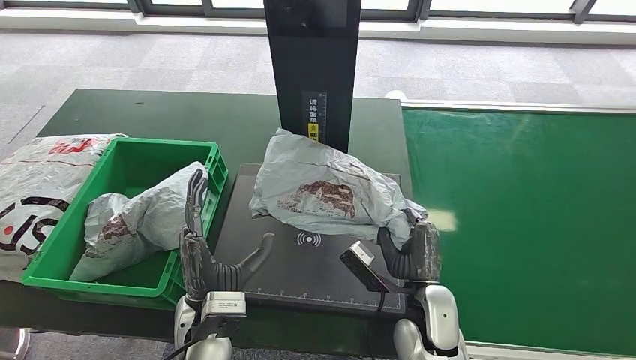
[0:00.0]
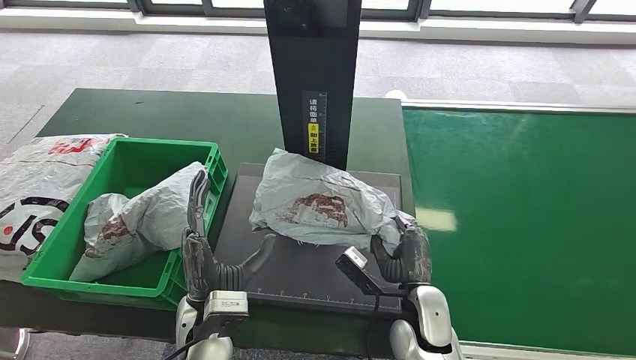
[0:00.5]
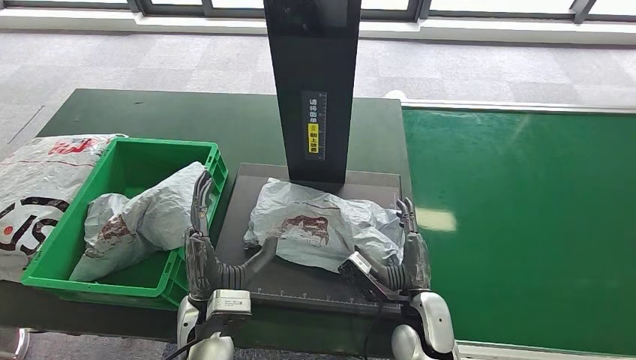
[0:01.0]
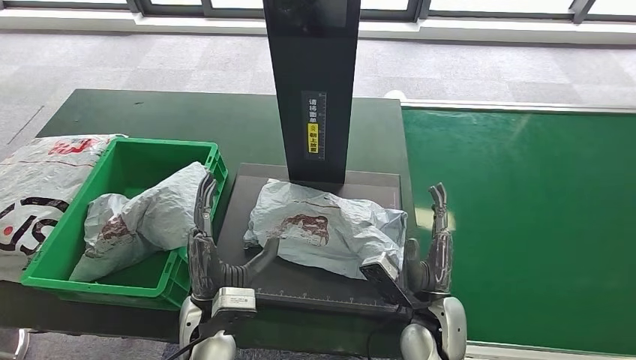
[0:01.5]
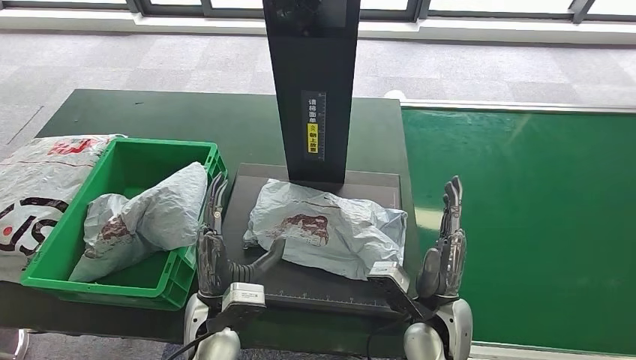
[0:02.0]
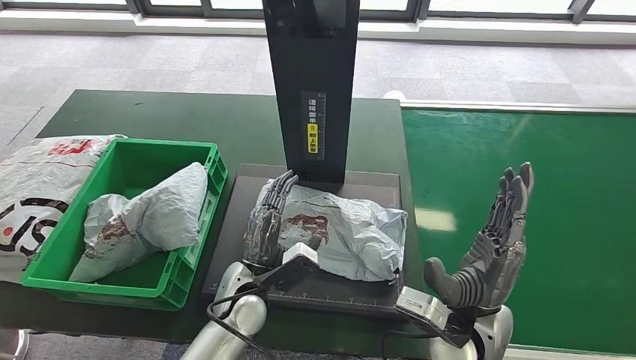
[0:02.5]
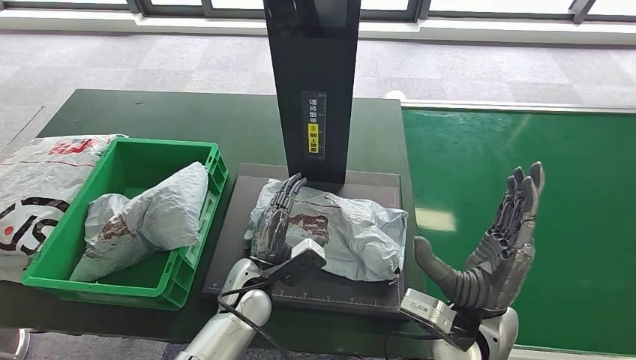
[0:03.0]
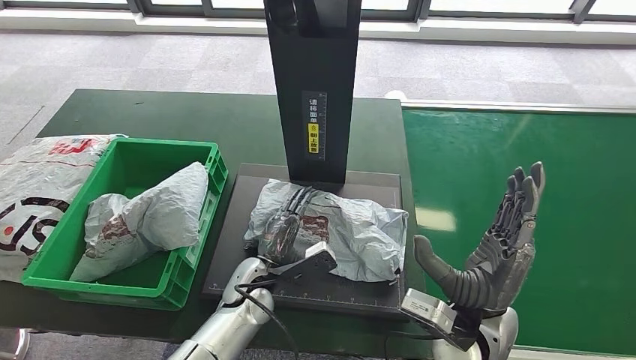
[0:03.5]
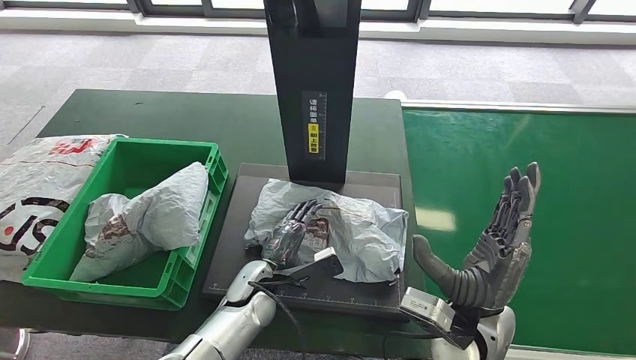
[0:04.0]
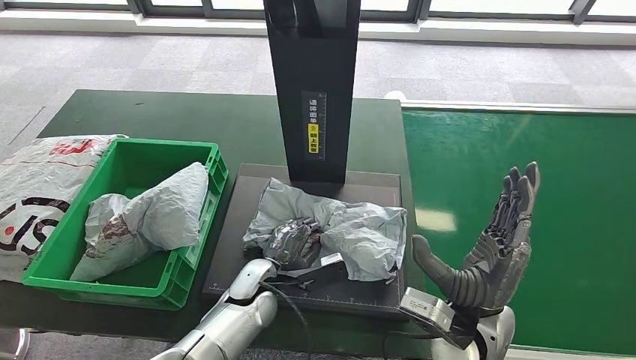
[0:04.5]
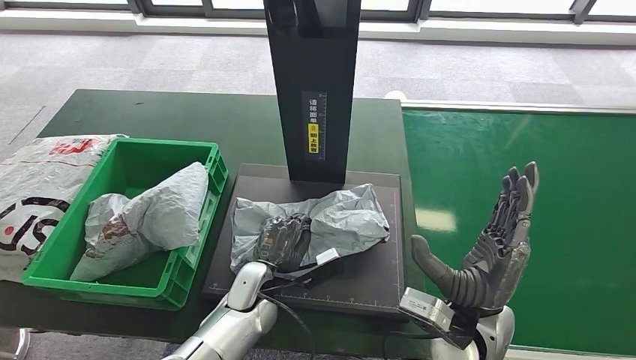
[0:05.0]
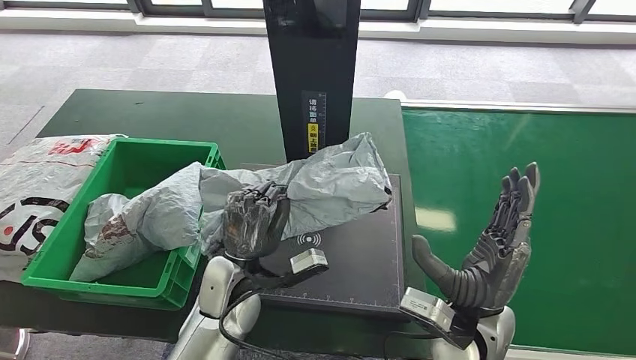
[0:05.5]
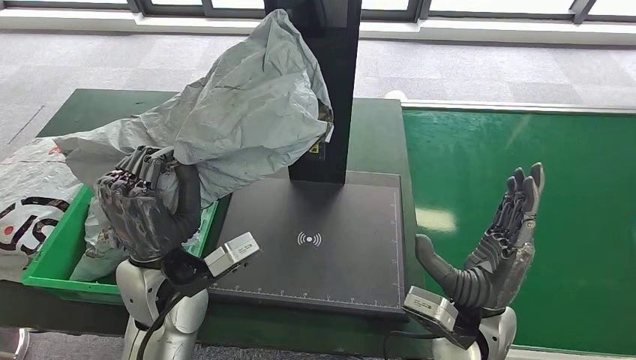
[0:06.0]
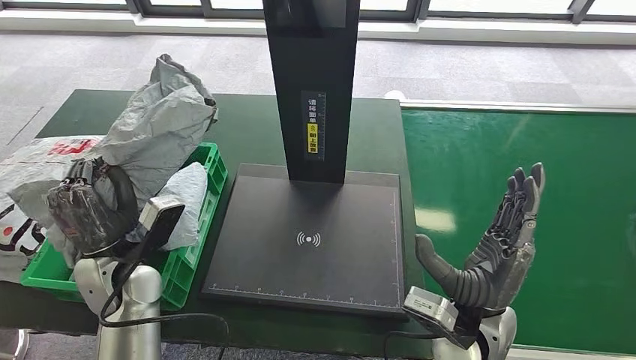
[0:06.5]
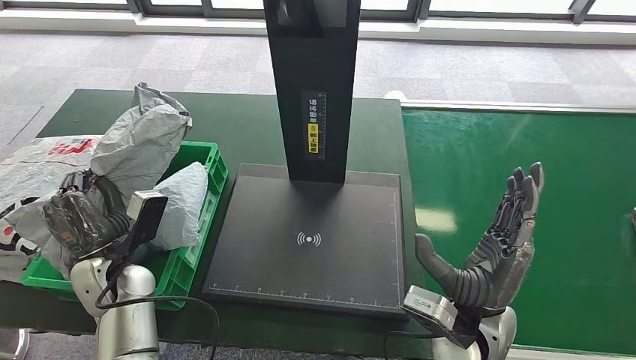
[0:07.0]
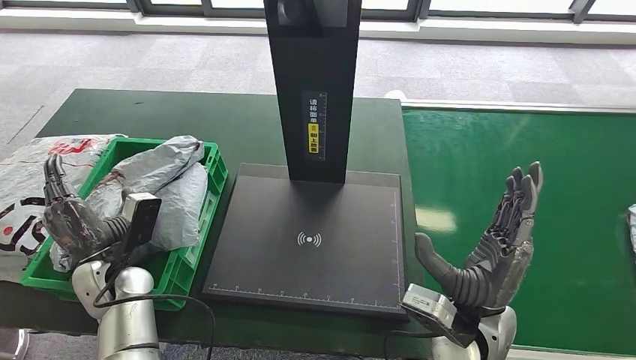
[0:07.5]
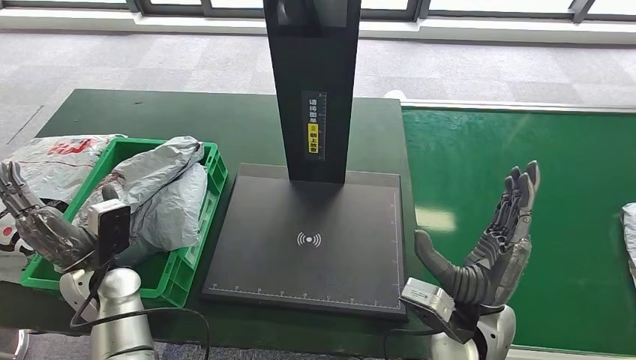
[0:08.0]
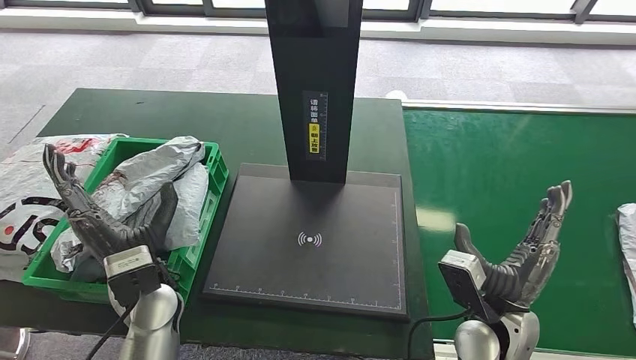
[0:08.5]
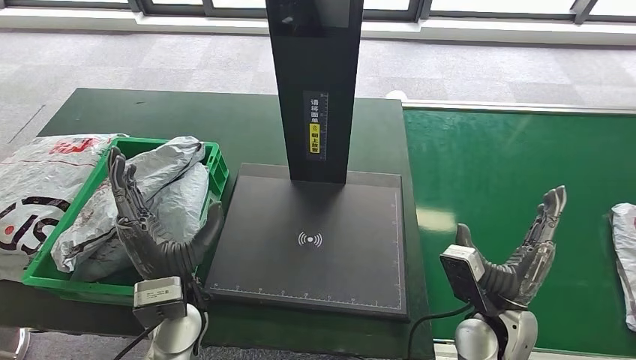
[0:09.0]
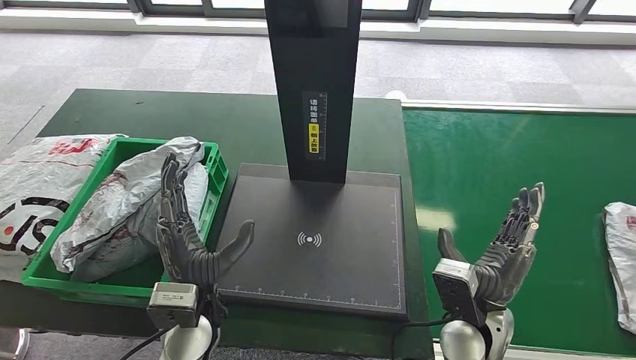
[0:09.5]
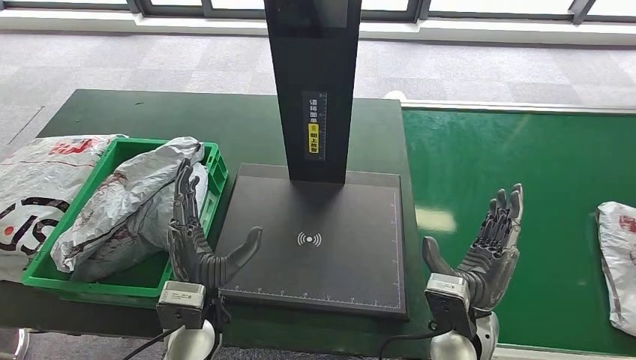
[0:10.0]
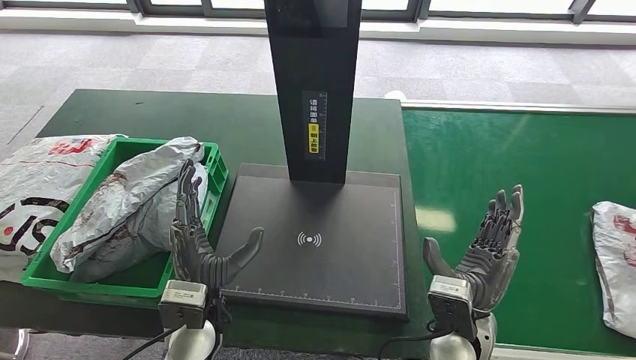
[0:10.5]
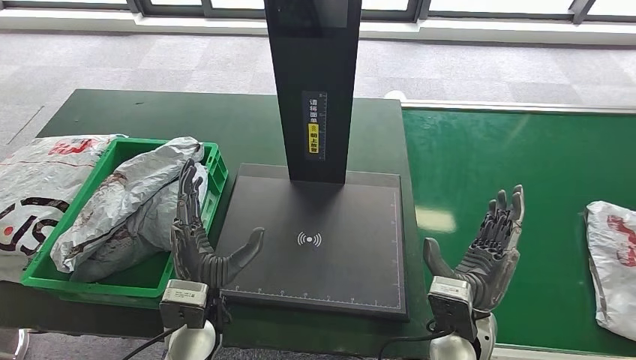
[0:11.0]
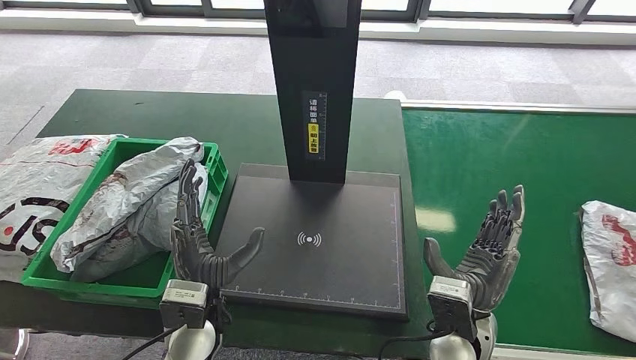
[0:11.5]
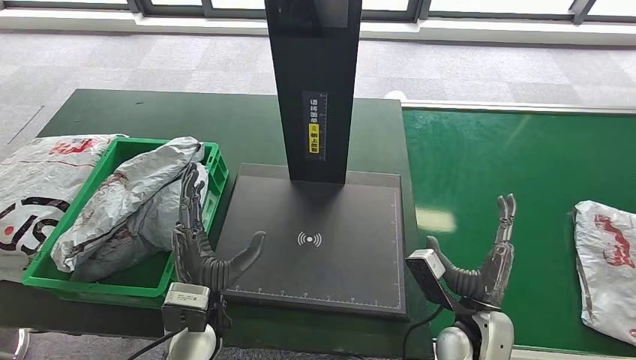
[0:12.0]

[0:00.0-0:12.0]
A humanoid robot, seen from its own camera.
Step, 0:01.5 to 0:05.0: Pick up the parcel from the inbound machine.
Step, 0:05.5 to 0:08.0: Place the parcel into the delivery box.
0:02.0 to 0:04.0: The left hand heads forward, downward and to the right, covering about 10 cm. Meanwhile the right hand heads upward, covering about 5 cm.
0:08.0 to 0:10.0: The left hand is displaced to the right by about 15 cm.

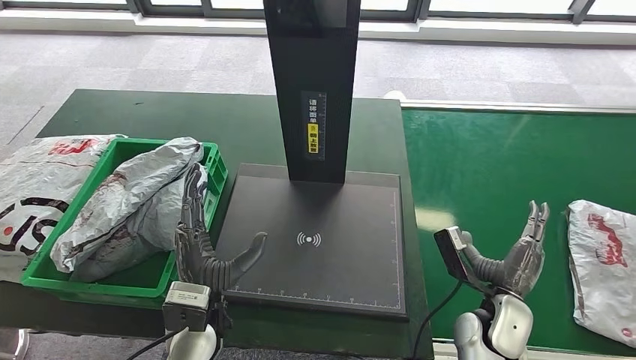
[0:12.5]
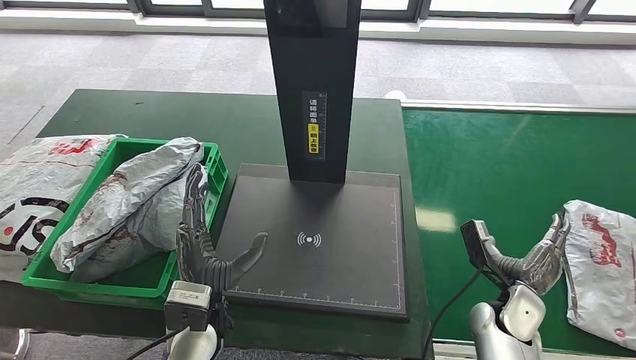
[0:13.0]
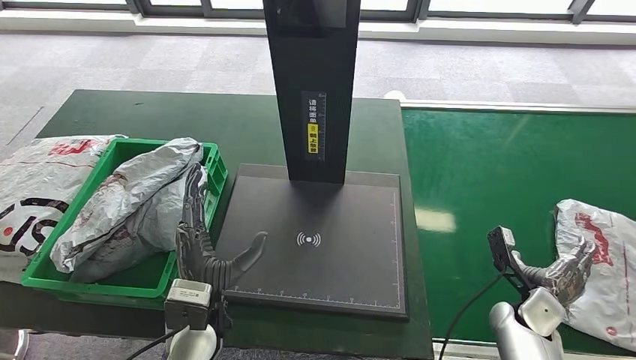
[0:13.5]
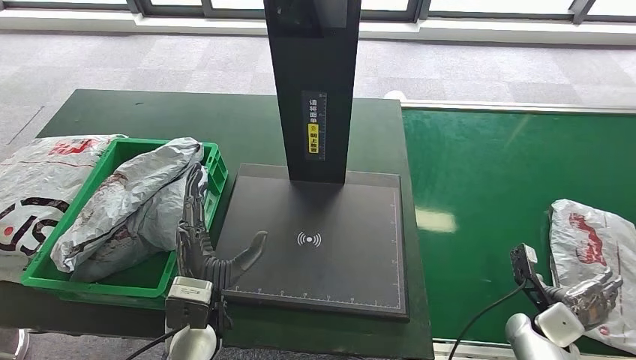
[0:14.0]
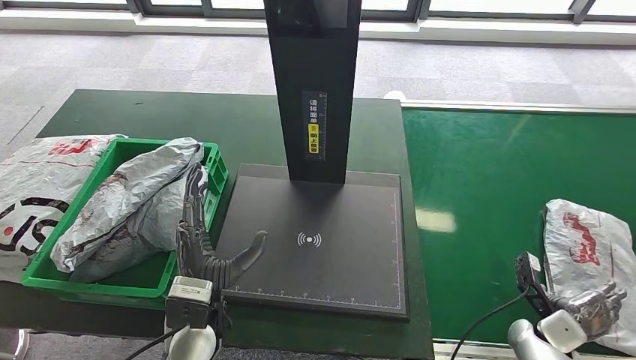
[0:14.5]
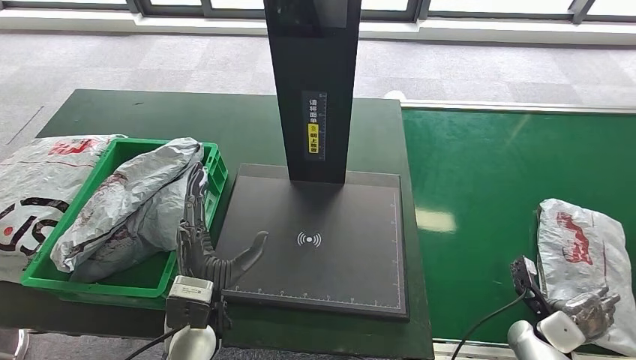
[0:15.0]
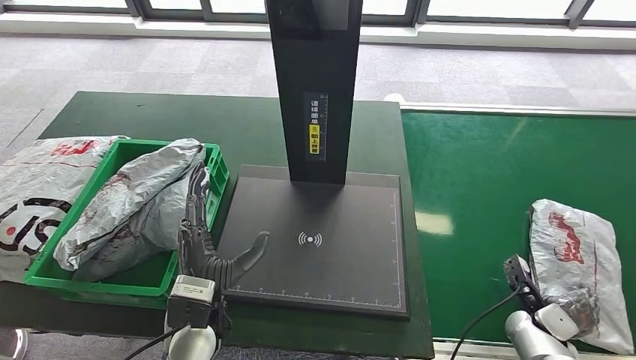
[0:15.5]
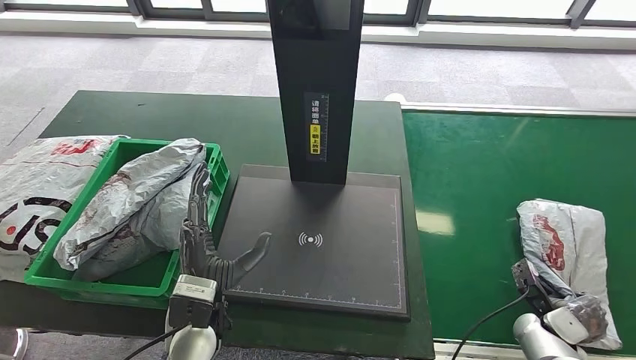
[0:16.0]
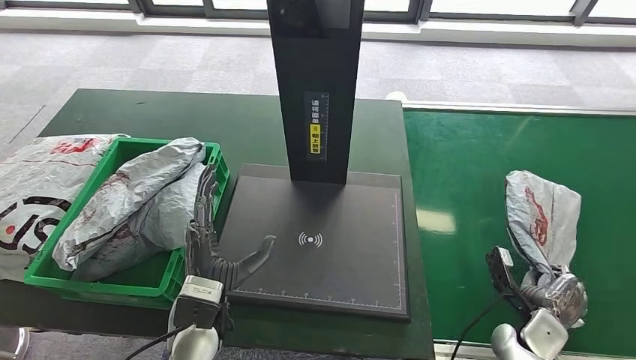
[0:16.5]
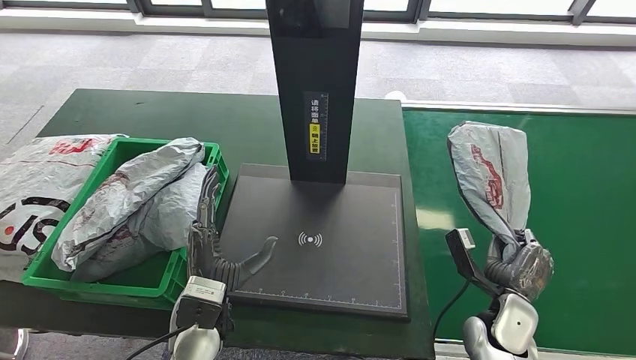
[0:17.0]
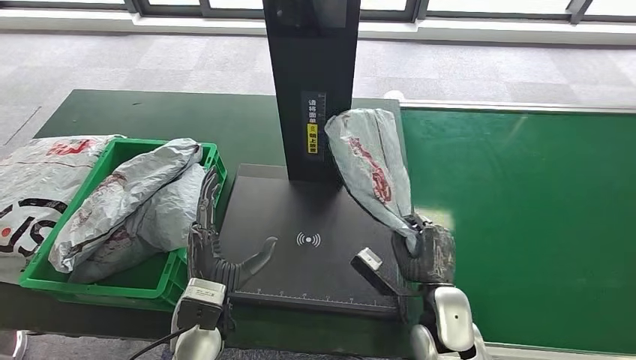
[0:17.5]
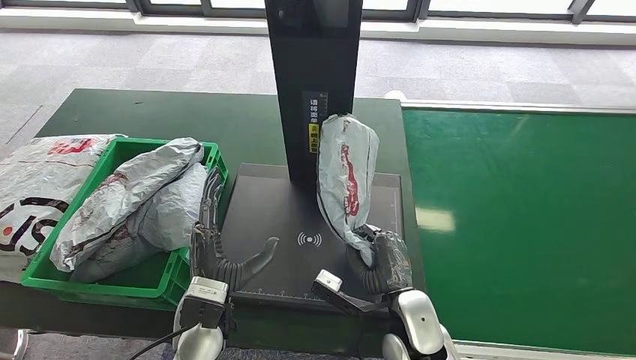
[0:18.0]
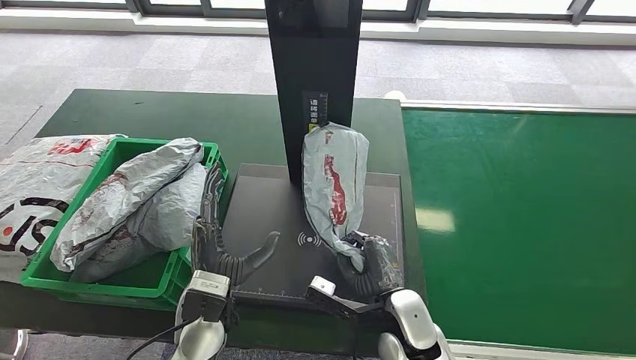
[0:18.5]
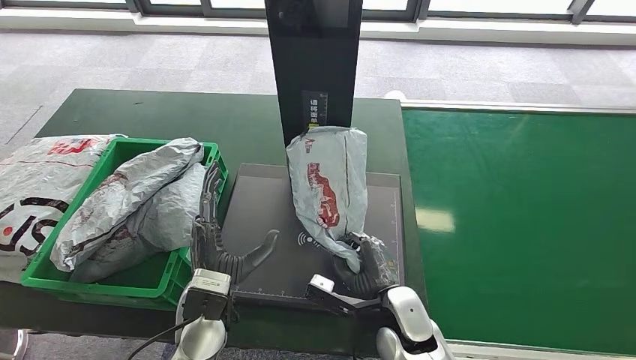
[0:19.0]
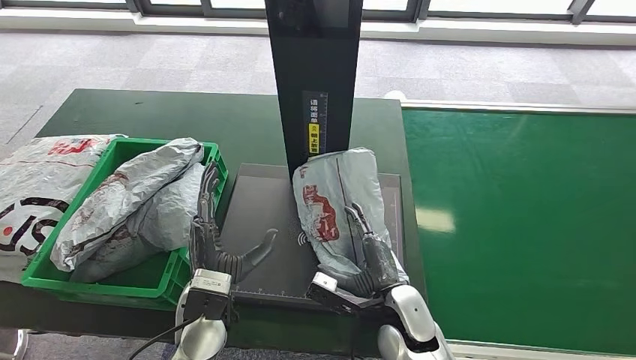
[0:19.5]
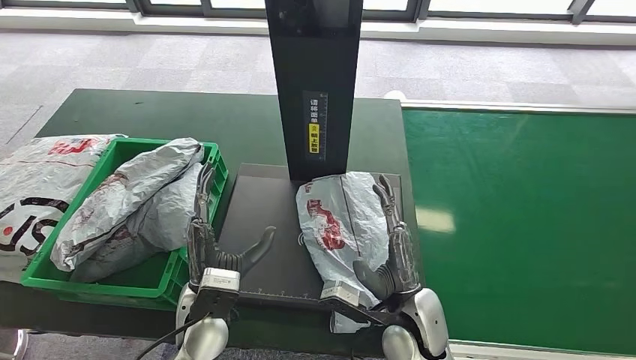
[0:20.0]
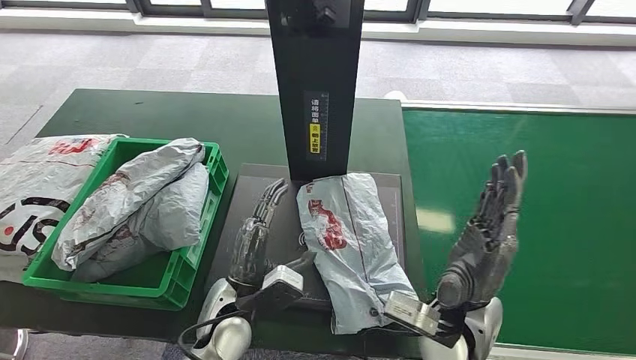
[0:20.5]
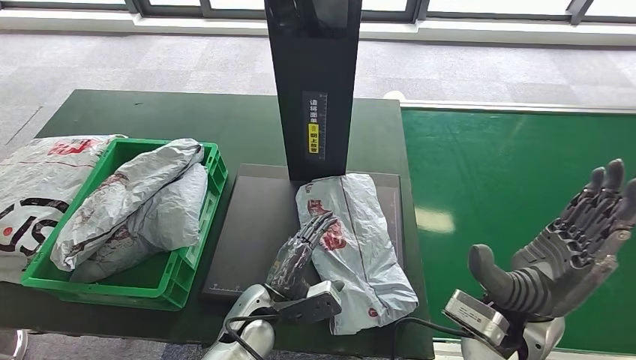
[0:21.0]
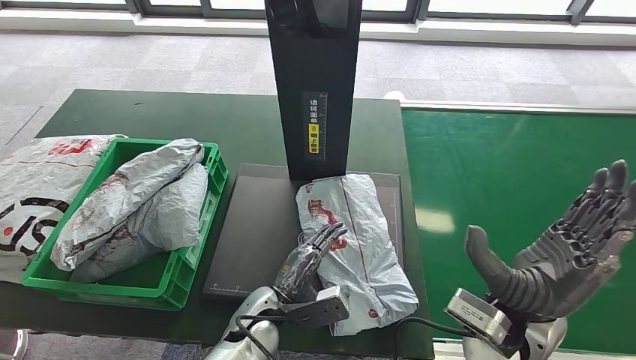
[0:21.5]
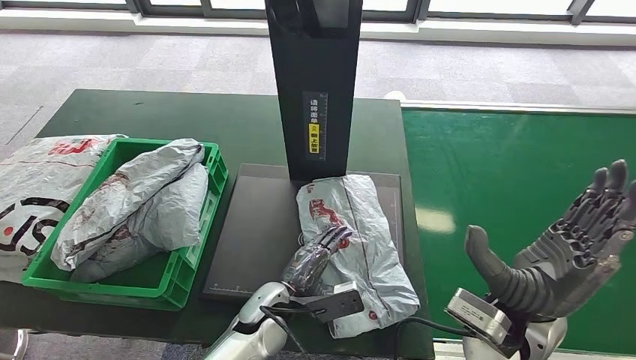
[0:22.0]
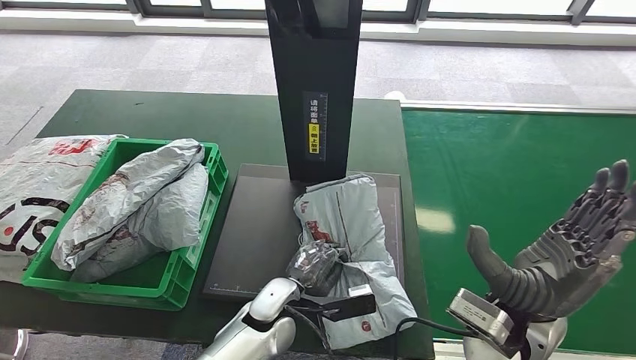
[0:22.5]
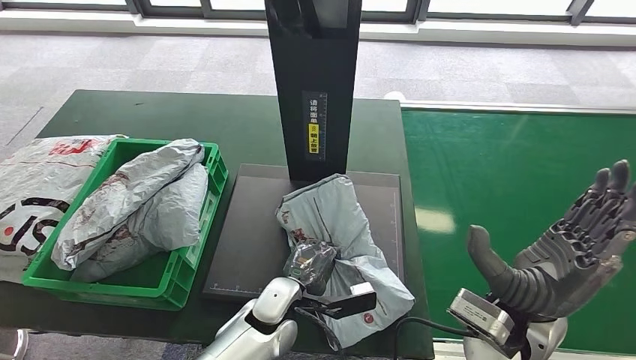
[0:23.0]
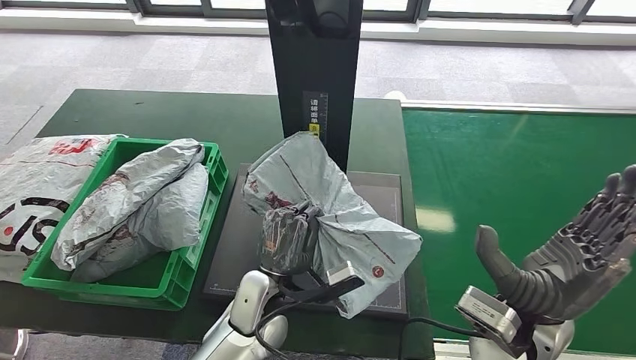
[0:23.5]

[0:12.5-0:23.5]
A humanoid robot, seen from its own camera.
Step, 0:12.5 to 0:17.0: Pick up the parcel from the conveyor belt.
Step, 0:17.5 to 0:20.5: Place the parcel onto the inbound machine.
0:12.5 to 0:14.5: The right hand shifts approximately 15 cm to the right and downward.
0:14.5 to 0:16.0: There are only small adjustments of the hands.
0:20.0 to 0:21.5: The left hand shifts approximately 10 cm to the right and downward, while the right hand moves upward and to the right, about 15 cm.
0:21.5 to 0:23.5: The left hand moves upward, approximately 5 cm.
